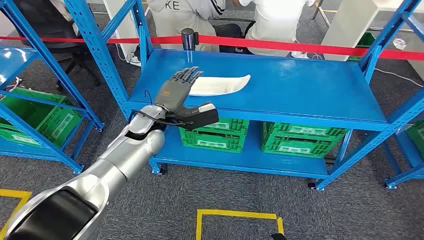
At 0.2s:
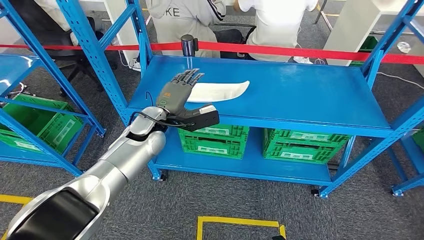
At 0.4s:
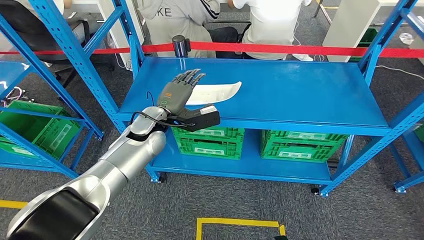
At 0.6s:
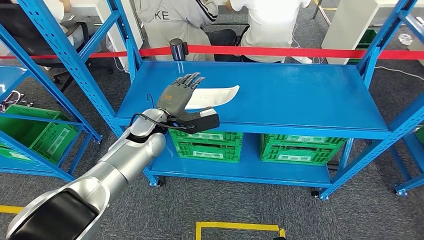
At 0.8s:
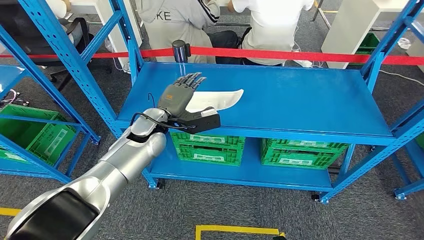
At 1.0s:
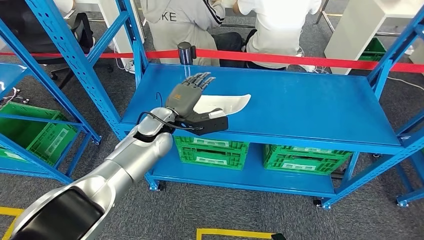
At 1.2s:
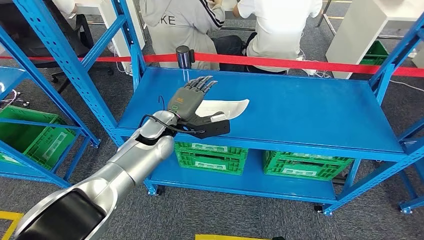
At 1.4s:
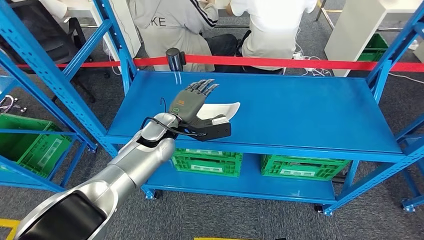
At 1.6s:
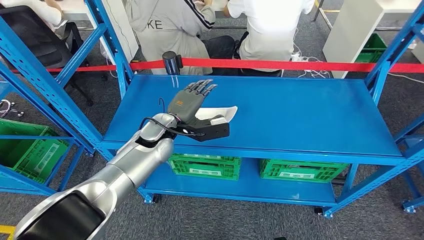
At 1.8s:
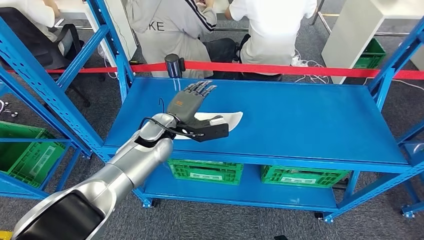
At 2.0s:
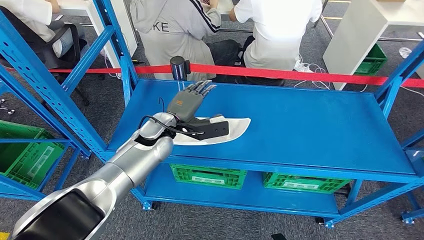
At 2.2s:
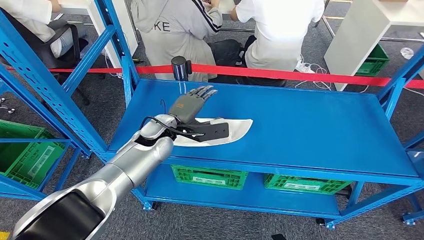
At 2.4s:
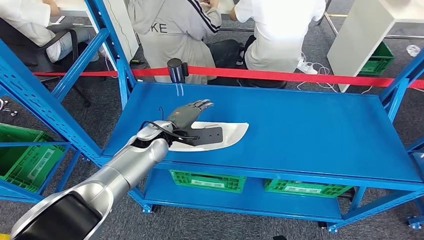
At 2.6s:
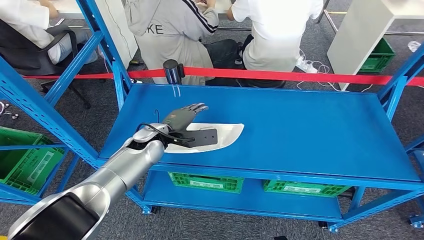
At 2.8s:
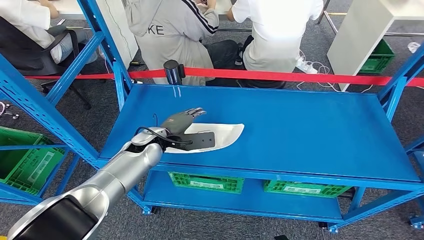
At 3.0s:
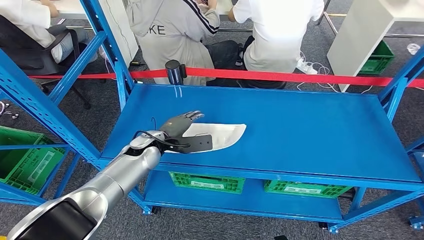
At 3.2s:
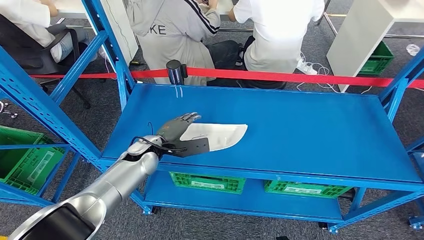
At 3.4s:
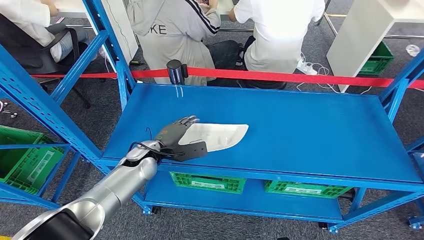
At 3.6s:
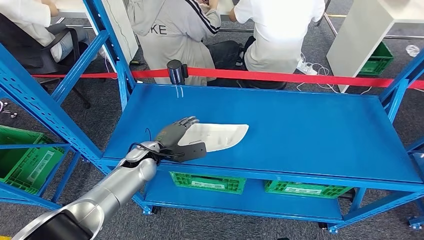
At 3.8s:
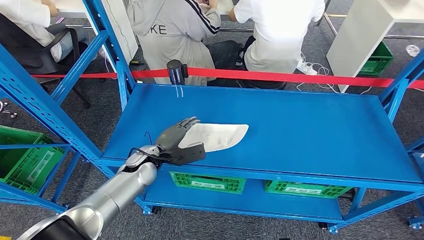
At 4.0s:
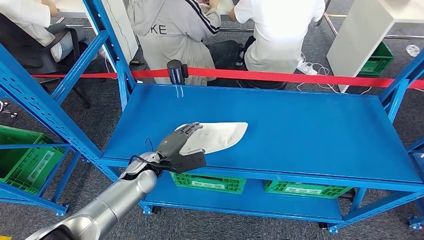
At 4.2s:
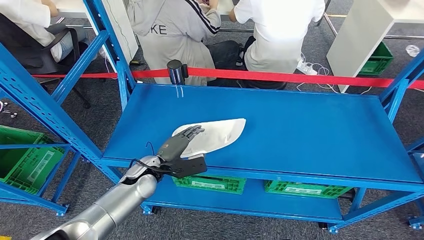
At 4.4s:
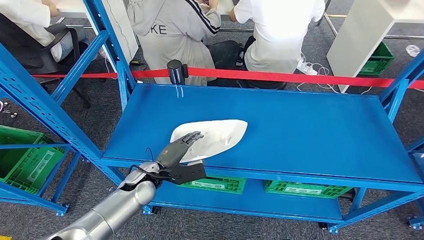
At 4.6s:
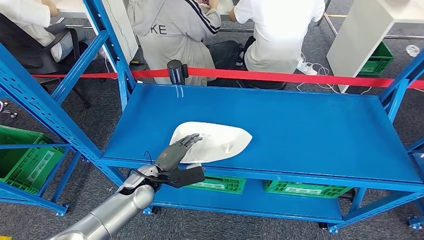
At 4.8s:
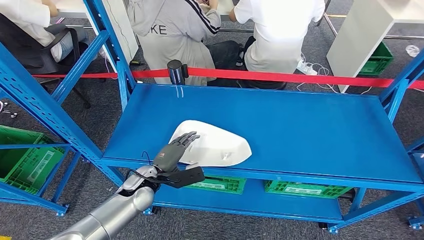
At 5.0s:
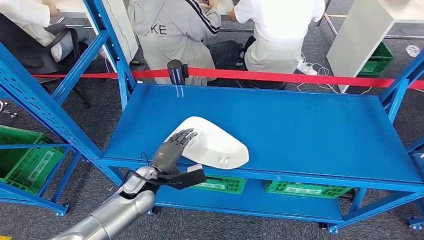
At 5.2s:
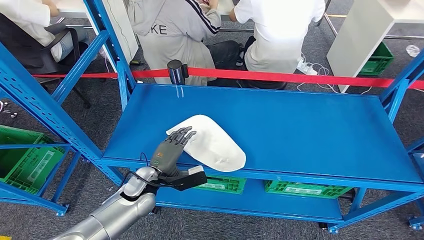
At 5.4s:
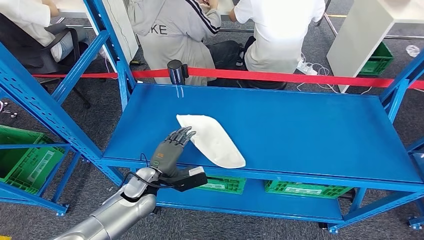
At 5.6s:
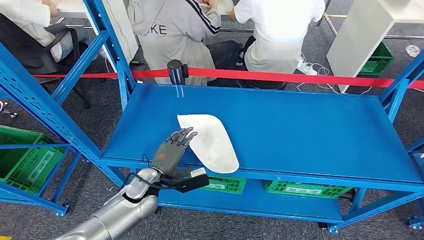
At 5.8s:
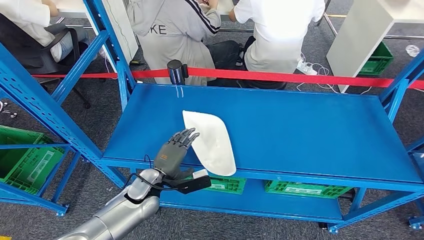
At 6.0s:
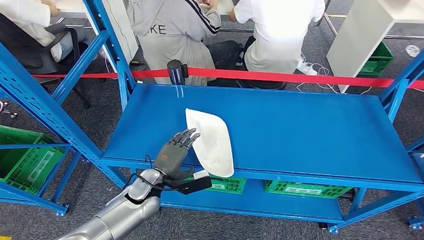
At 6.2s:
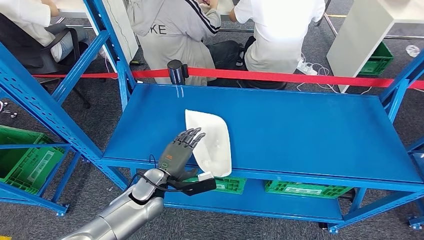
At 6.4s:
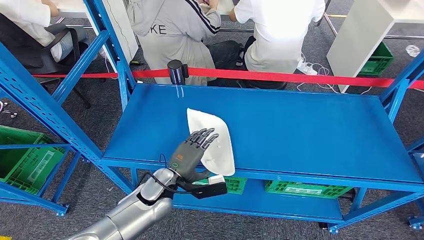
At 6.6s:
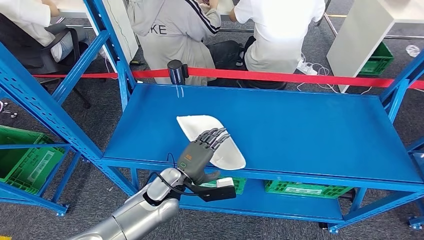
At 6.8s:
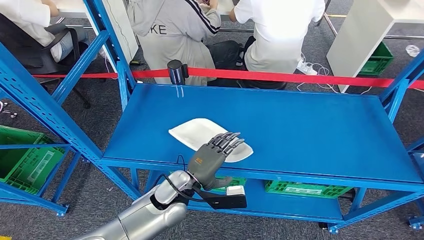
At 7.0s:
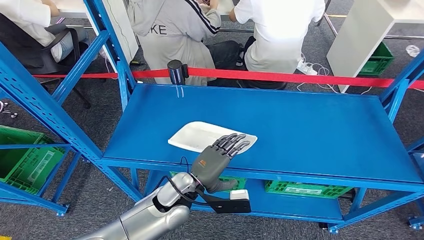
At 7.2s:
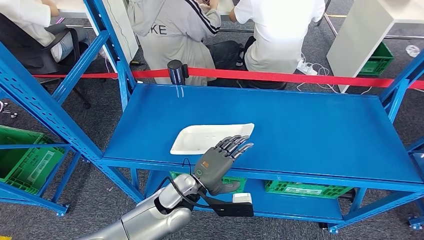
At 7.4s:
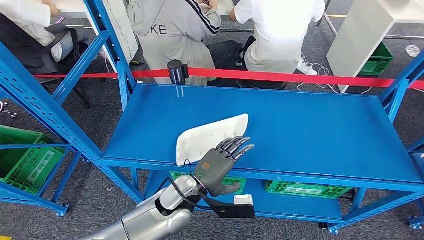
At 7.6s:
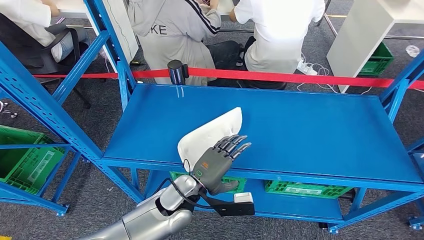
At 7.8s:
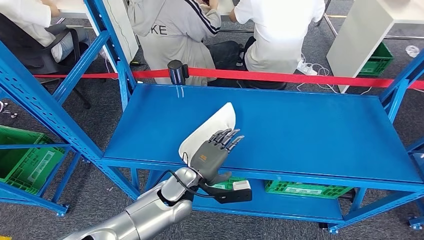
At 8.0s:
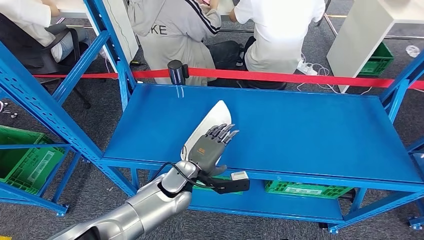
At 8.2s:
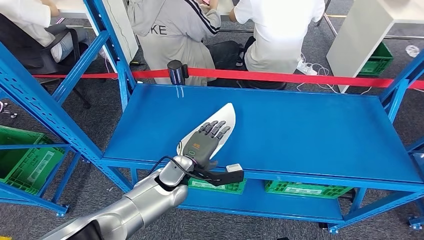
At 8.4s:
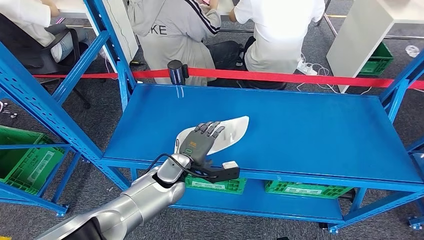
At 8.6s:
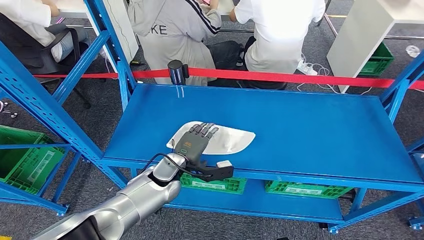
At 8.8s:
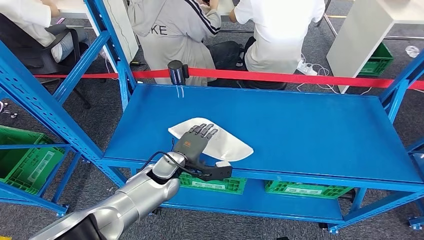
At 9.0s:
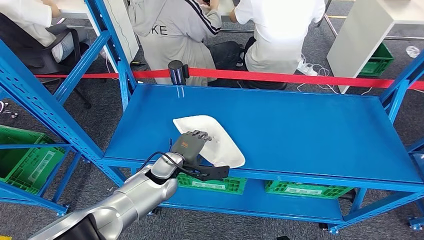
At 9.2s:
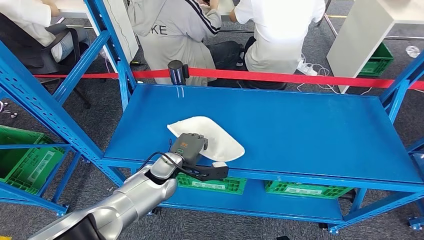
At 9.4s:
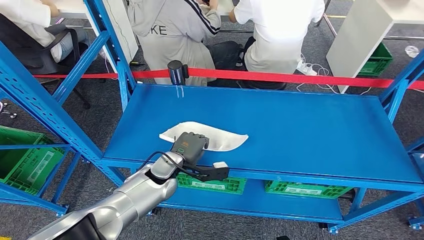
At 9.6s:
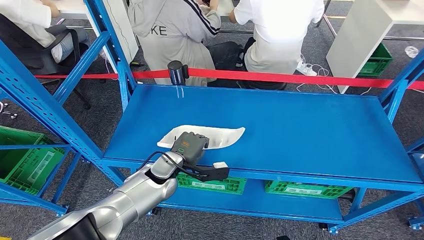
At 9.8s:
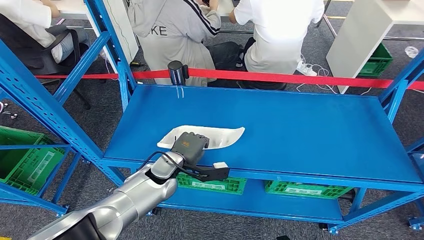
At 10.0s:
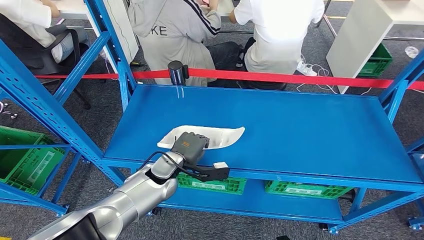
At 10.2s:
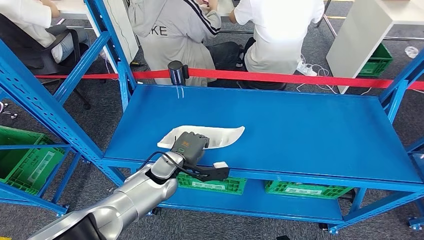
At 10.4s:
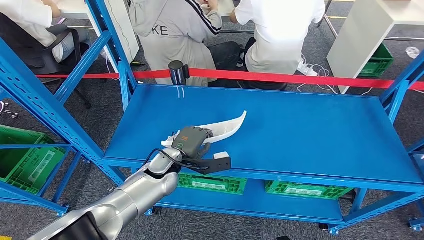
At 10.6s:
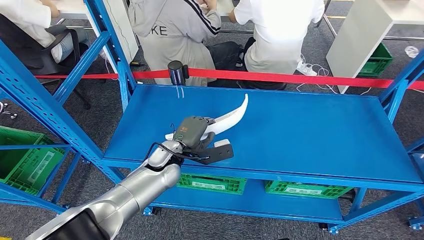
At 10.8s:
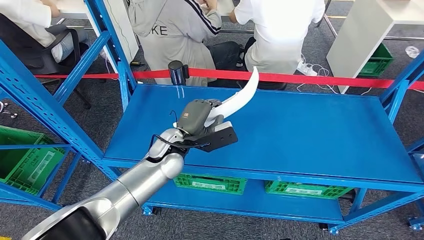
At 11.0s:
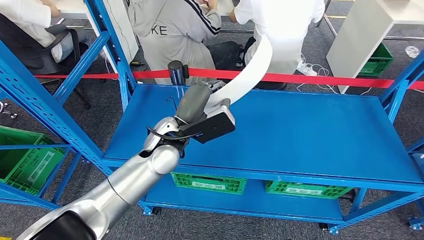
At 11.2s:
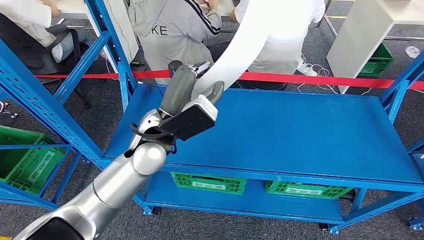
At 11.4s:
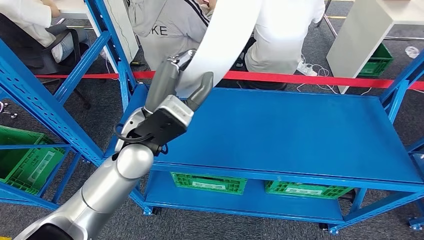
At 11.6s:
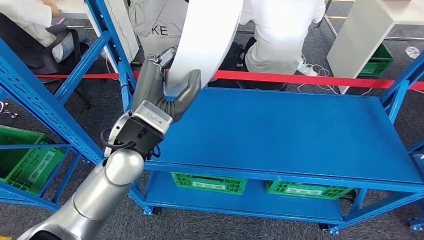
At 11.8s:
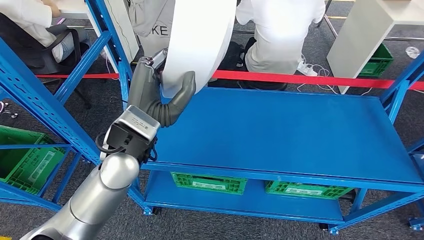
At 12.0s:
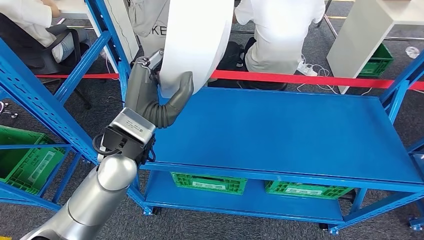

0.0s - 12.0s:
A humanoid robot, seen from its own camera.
Step, 0.0s - 10.8s: Pick up the large material from the shelf.
3.0s - 4.4s: The left hand is displaced backward and downward by roughly 10 cm.
6.0s - 7.6s: The left hand shifts approximately 10 cm to the right and upward.
7.6s - 9.0s: The left hand goes some 10 cm forward and to the left.
9.0s - 10.4s: The hands make only small movements.
10.4s - 12.0s: The left hand goes some 20 cm upward.

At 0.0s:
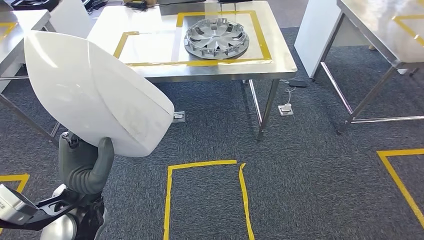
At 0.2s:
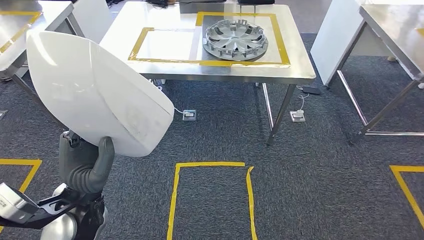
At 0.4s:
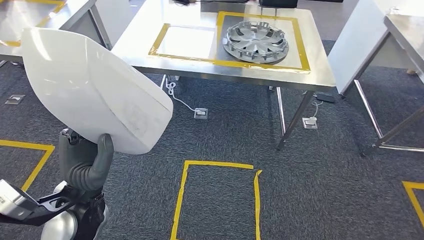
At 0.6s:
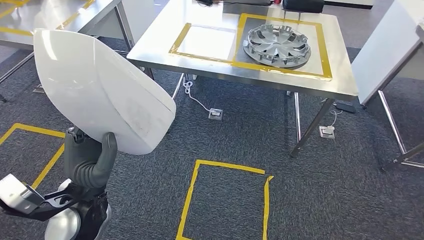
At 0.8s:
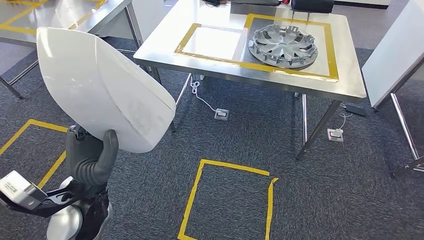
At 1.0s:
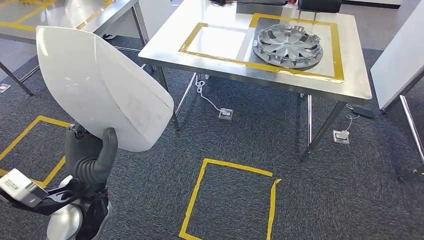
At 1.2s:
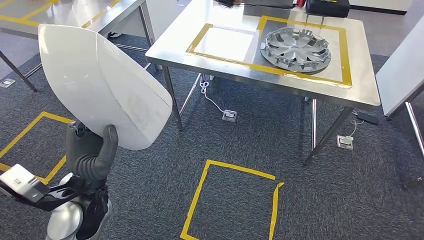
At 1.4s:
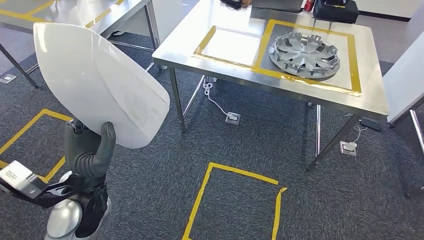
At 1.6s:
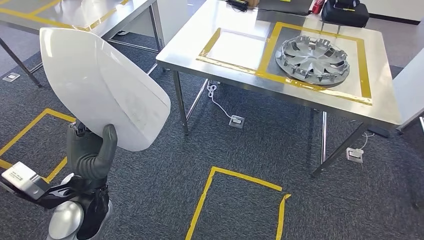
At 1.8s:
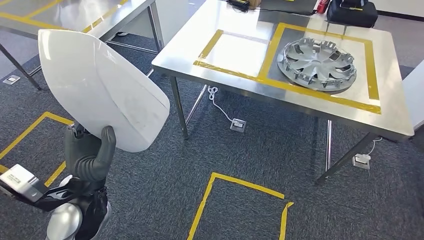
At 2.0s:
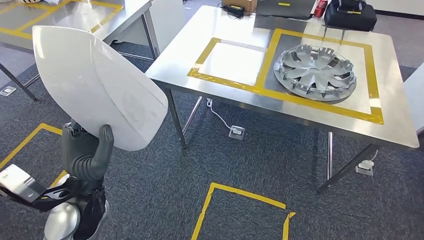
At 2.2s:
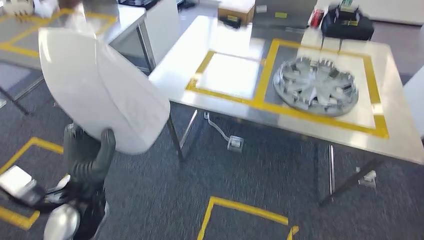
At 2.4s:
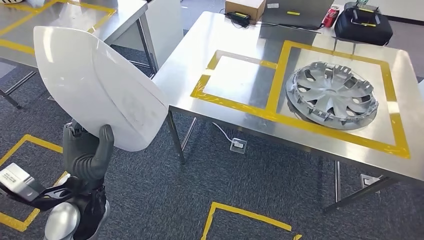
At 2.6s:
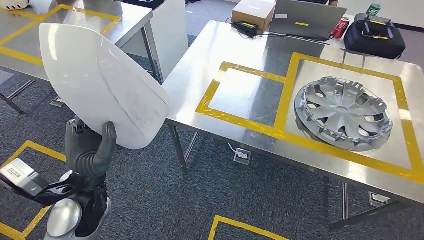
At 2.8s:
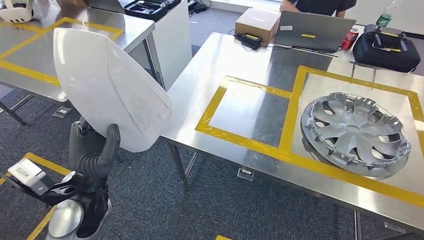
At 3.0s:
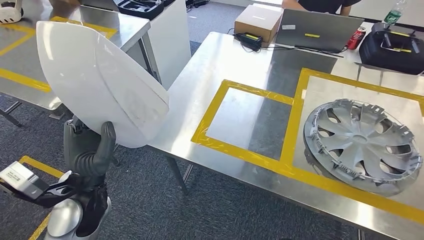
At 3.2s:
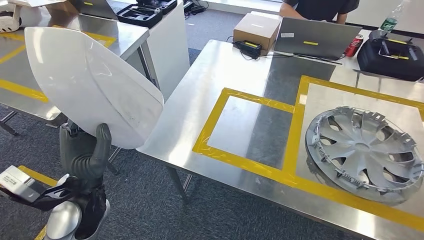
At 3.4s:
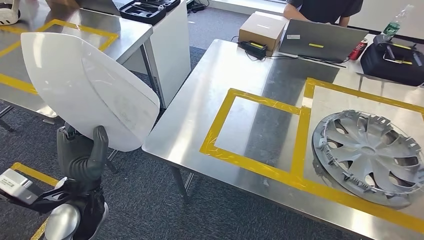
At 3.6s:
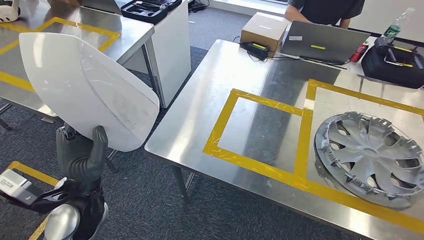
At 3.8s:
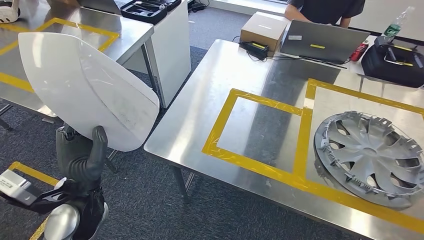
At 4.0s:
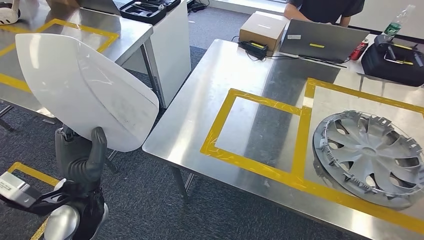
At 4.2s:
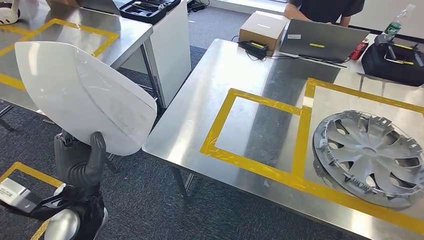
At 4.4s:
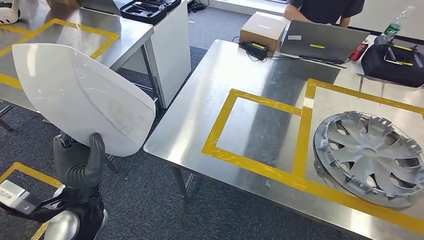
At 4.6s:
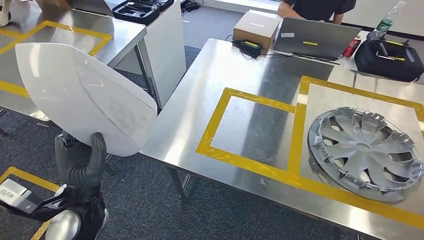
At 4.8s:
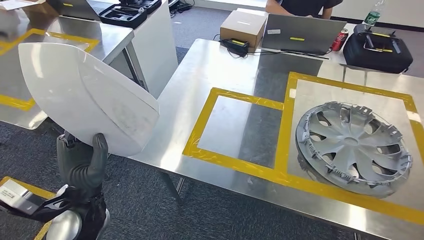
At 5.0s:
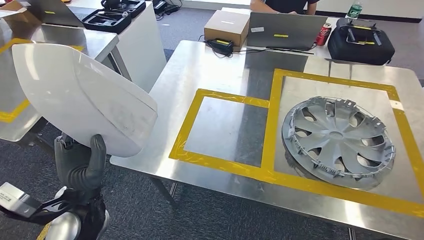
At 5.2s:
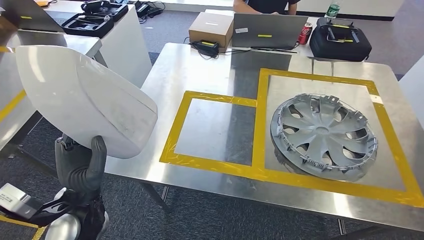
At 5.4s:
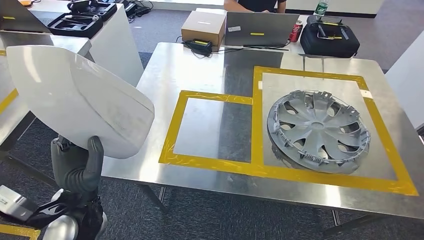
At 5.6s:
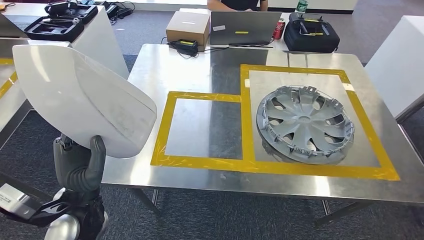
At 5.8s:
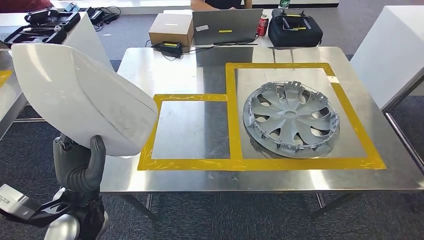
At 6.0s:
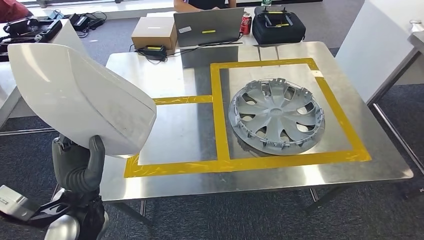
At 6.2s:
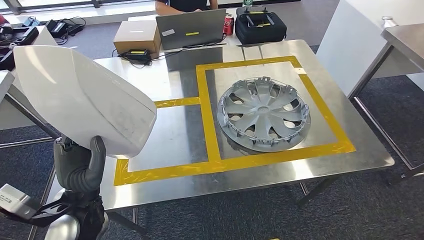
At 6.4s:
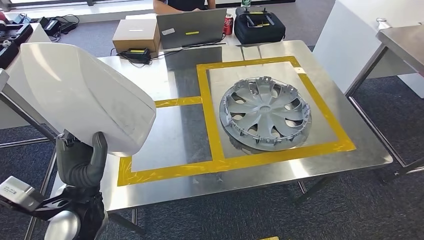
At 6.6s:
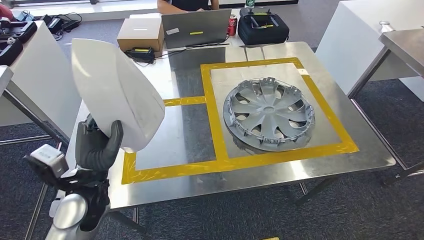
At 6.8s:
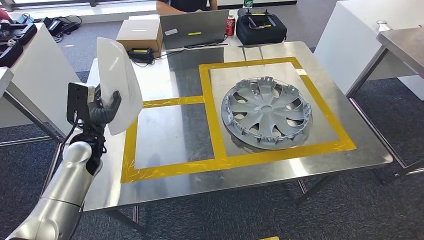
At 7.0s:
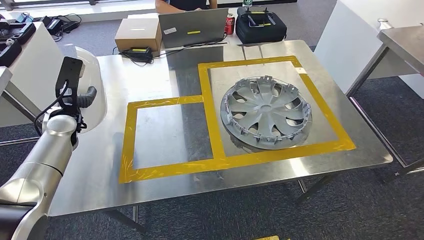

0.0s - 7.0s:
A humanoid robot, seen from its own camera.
Step, 0.0s - 6.8s: Move the large material to the workbench.
